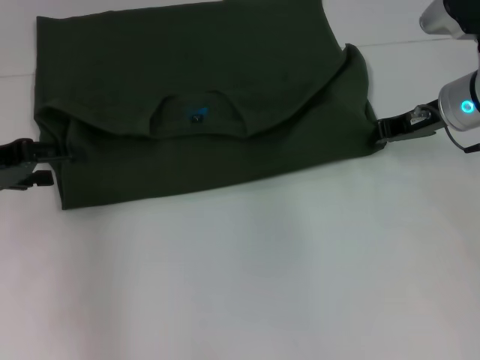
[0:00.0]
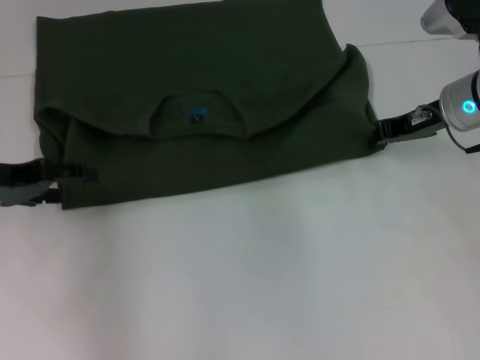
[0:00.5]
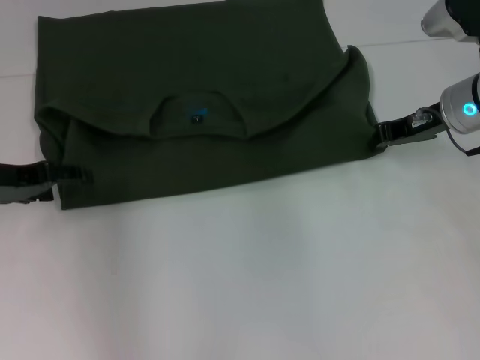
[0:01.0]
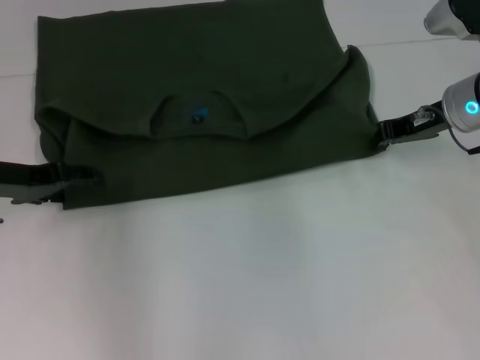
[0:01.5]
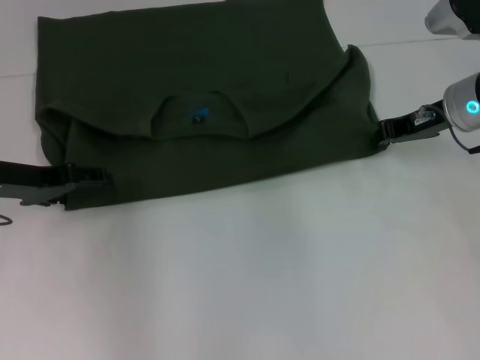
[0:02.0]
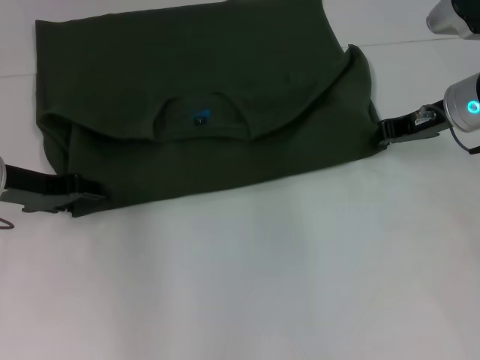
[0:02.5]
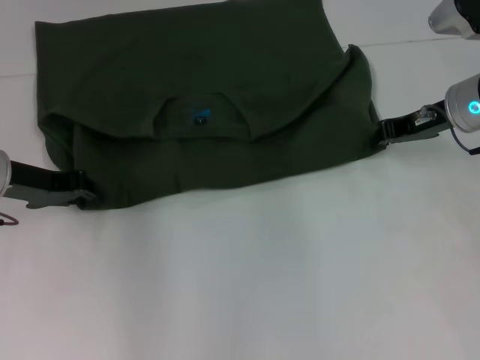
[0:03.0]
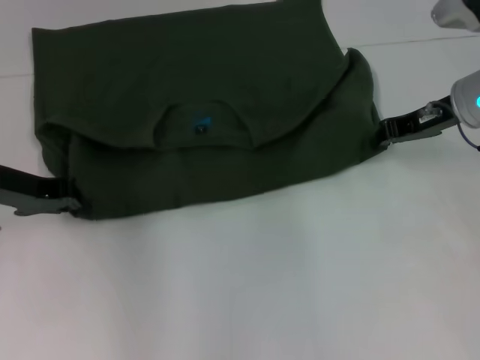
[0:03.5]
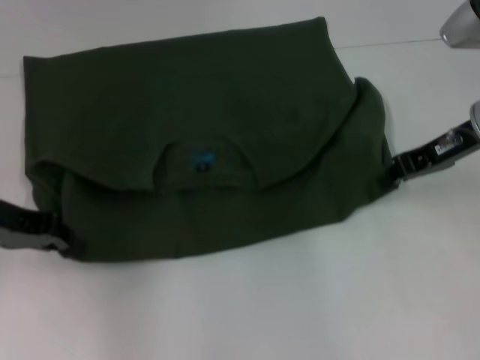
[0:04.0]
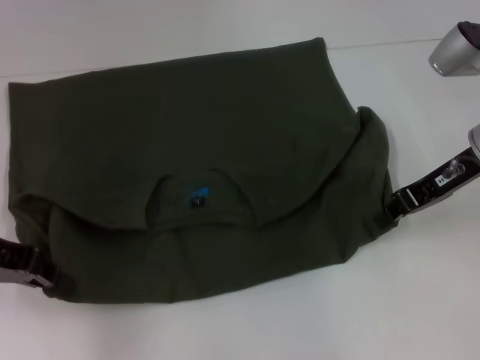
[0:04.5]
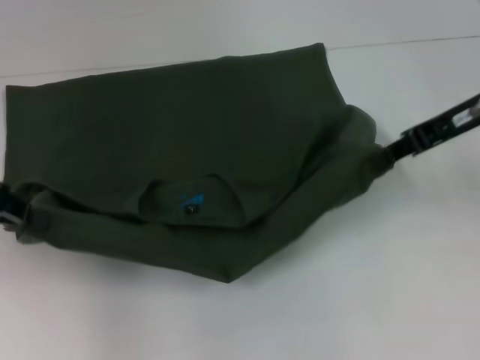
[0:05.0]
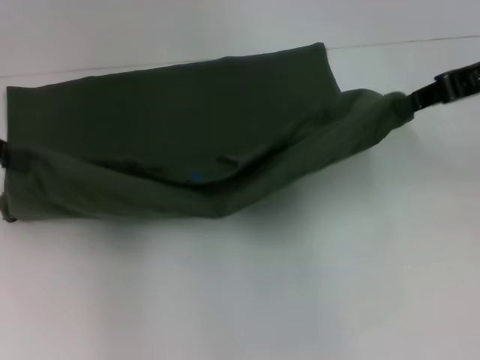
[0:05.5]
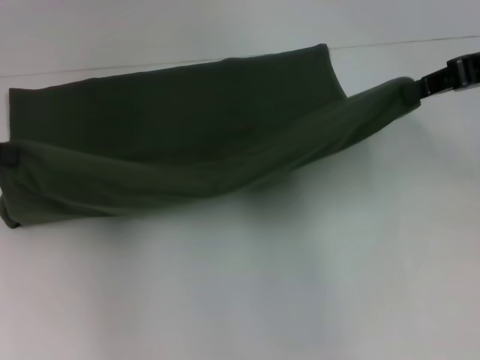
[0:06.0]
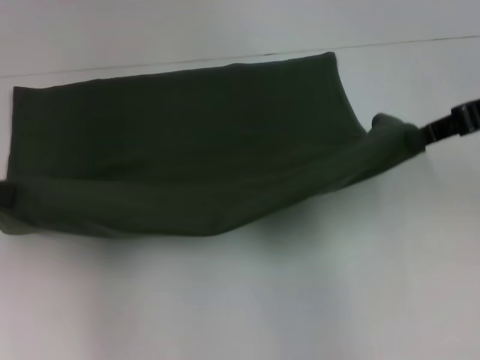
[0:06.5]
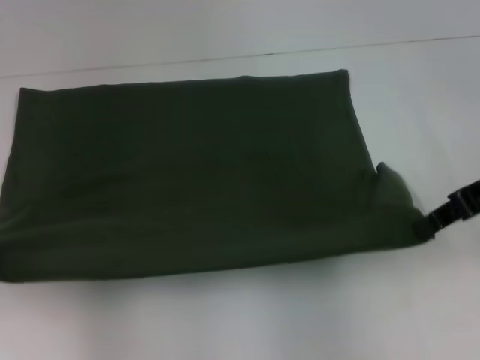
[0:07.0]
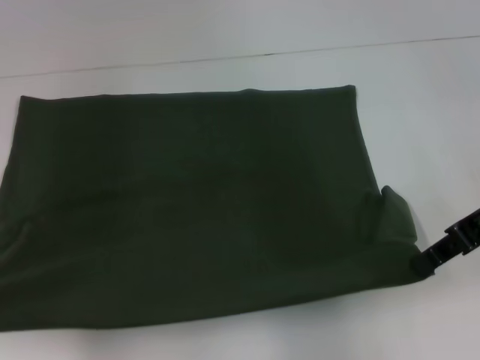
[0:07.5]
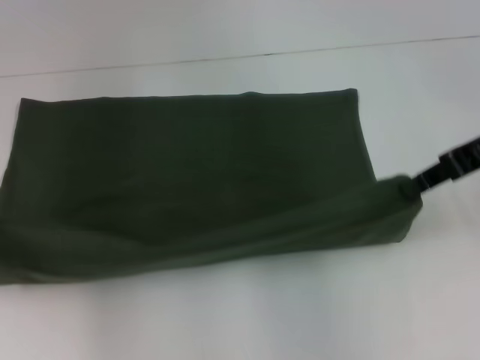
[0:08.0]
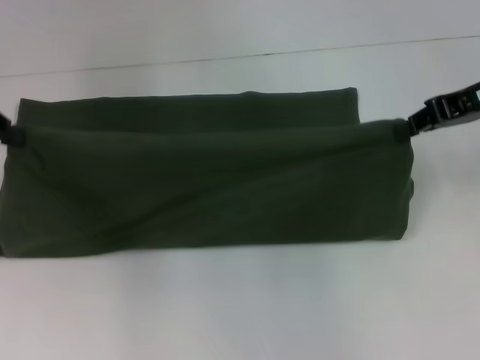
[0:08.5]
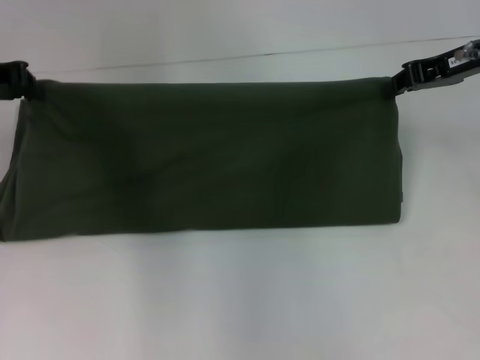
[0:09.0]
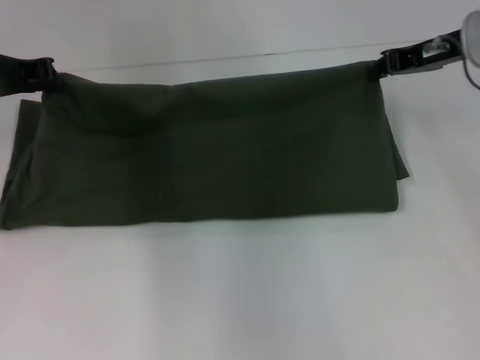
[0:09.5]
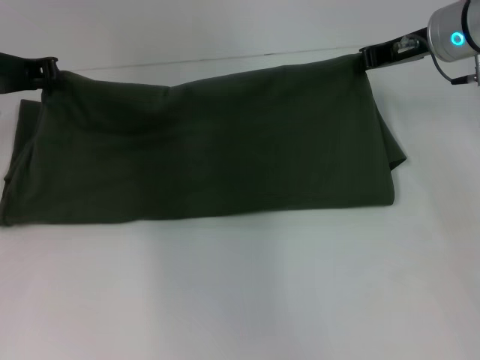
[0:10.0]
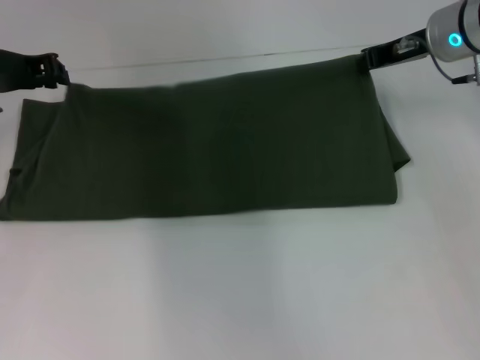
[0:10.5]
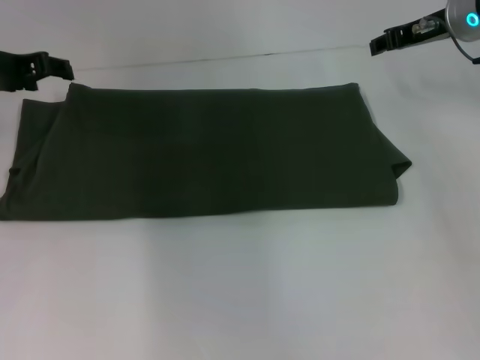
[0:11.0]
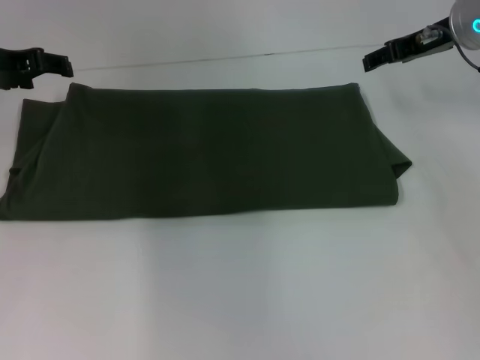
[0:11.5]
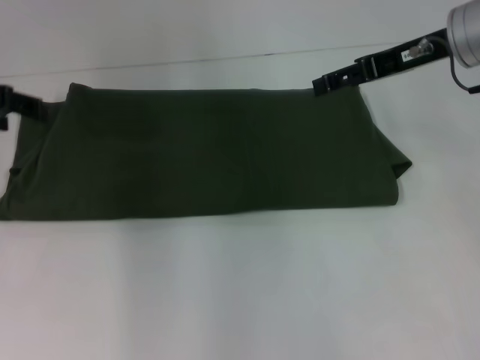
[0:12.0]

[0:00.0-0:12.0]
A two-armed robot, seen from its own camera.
Step, 0:00.0 to 0:04.5: Pull the clothes with your left hand.
Step, 0:00.0 to 0:04.5: Pull the clothes with your right hand.
Step, 0:05.0 to 0:10.5: Fold the clothes with your left hand.
Step, 0:05.0 to 0:10.5: Fold the clothes with your right hand.
0:00.0 to 0:02.0: The left gripper moves some 5 cm.
0:02.0 to 0:04.0: The left gripper closes up.
0:04.0 to 0:06.0: The left gripper moves upward and to the left, some 10 cm. The right gripper moves upward, roughly 10 cm.
0:08.0 to 0:10.0: The right gripper goes some 10 cm forward. Meanwhile the left gripper travels forward and to the right by approximately 15 cm.
0:10.0 to 0:12.0: The right gripper moves roughly 5 cm, and opens its fingers. Meanwhile the left gripper moves some 5 cm, and opens.

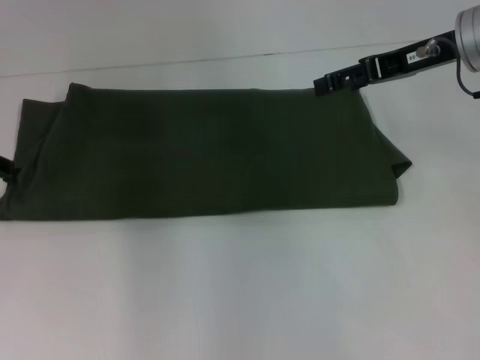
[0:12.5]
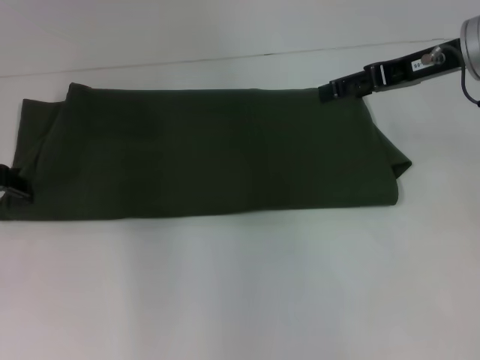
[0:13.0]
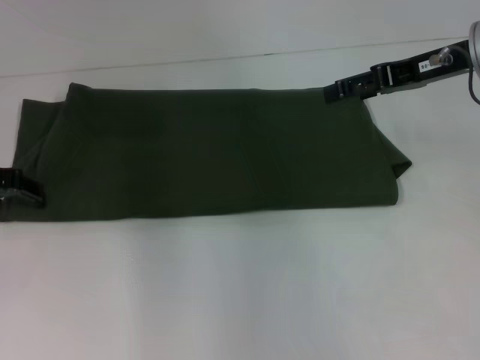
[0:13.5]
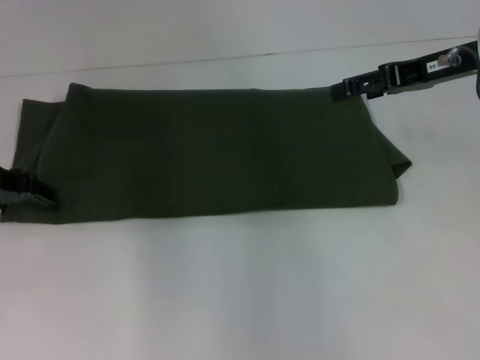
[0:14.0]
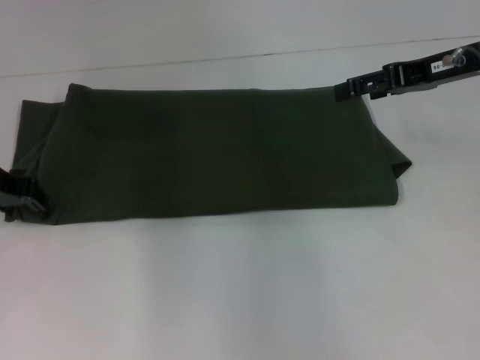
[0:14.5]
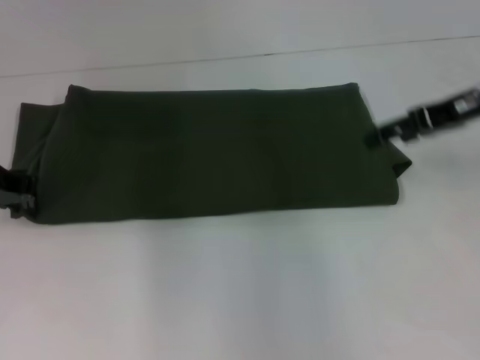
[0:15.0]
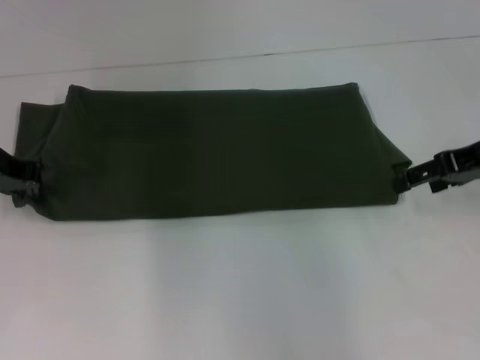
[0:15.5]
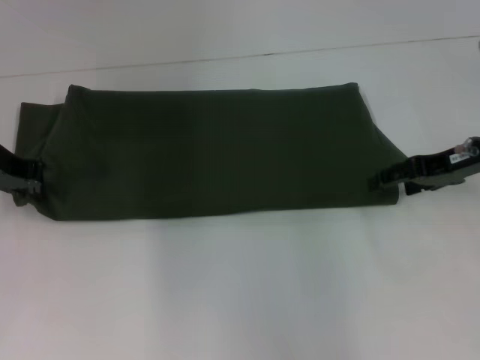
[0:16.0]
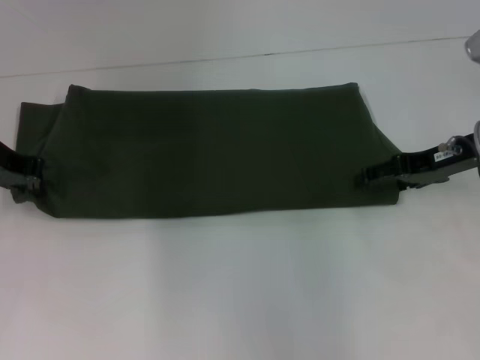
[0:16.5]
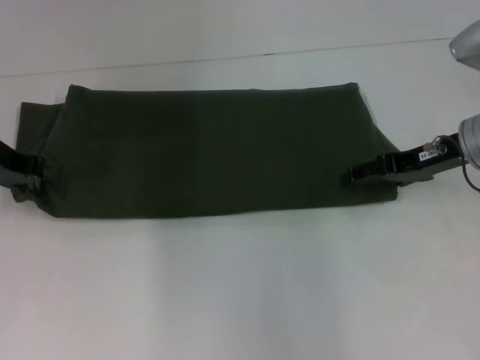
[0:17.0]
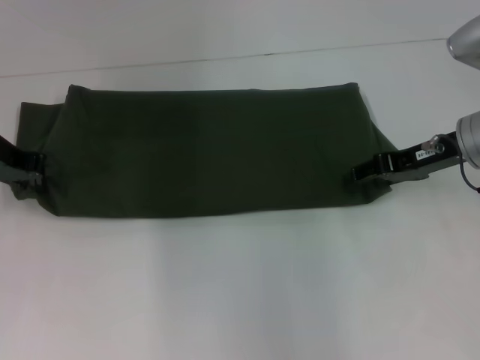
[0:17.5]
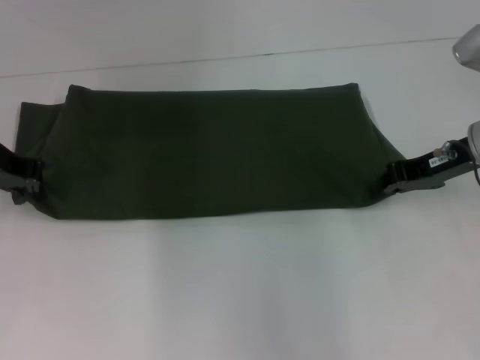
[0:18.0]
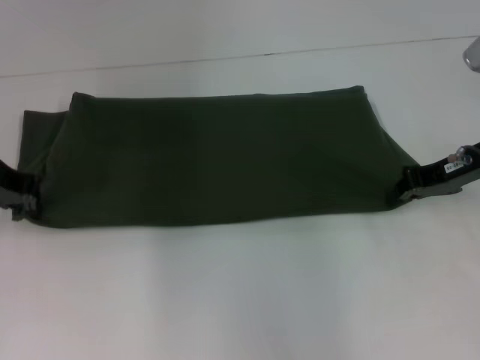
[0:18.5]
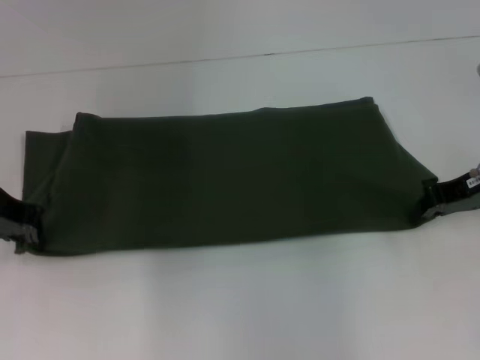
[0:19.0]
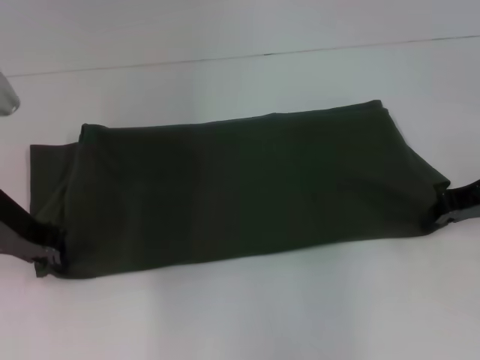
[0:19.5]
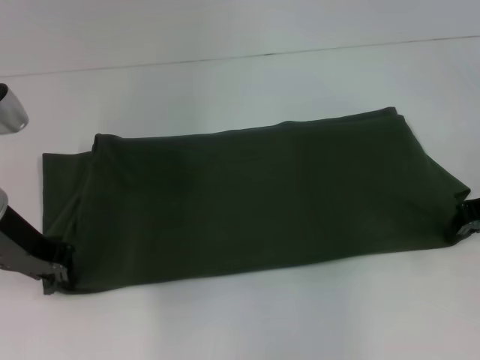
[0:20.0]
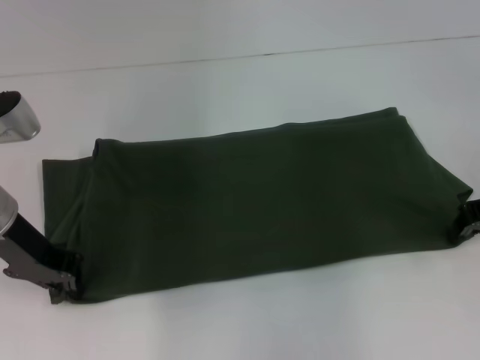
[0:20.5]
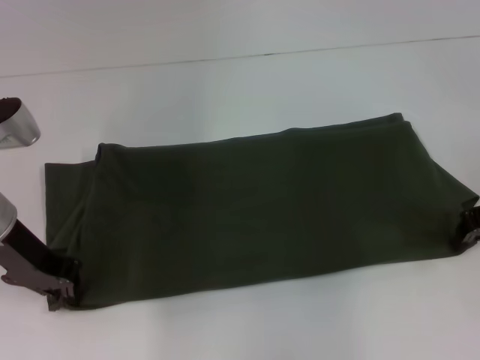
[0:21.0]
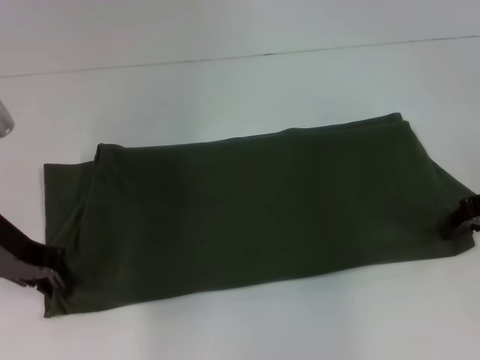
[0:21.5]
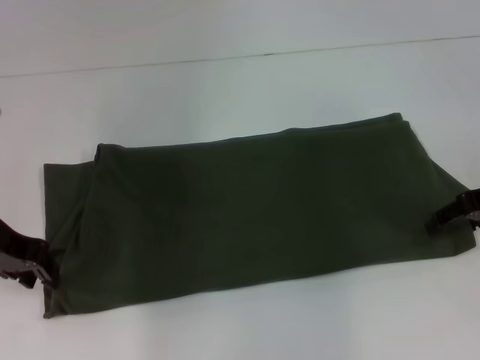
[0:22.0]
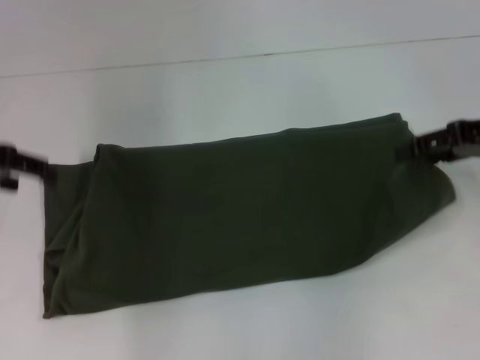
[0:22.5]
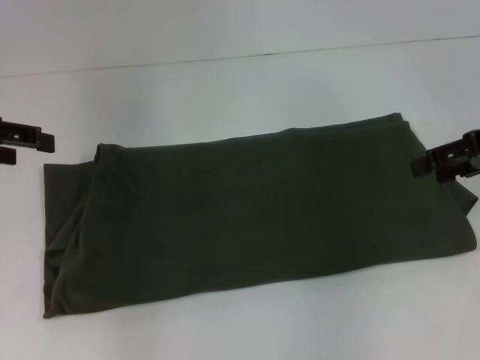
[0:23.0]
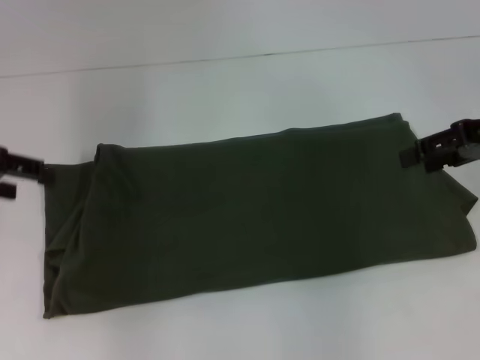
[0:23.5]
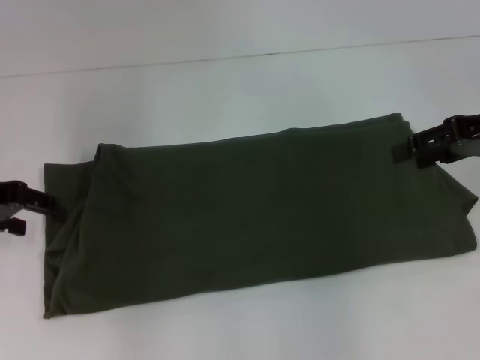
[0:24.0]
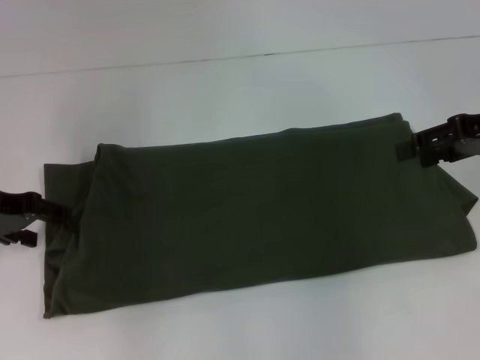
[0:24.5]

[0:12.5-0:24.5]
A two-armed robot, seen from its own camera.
Step, 0:12.5 to 0:21.5: Pull the clothes with your left hand.
Step, 0:12.5 to 0:21.5: Pull the clothes with your right hand.
0:12.5 to 0:14.5: The left gripper shifts by approximately 5 cm.
0:14.5 to 0:16.5: The right gripper heads downward, covering about 10 cm. Meanwhile the left gripper closes up.
0:16.5 to 0:18.5: The right gripper closes its fingers.
0:18.5 to 0:20.5: The left gripper travels backward by about 5 cm.
0:20.5 to 0:22.5: The left gripper is displaced upward and to the left by some 10 cm, and opens. The right gripper heads upward, covering about 5 cm, and opens up.
0:22.5 to 0:24.5: The left gripper shifts roughly 5 cm downward.

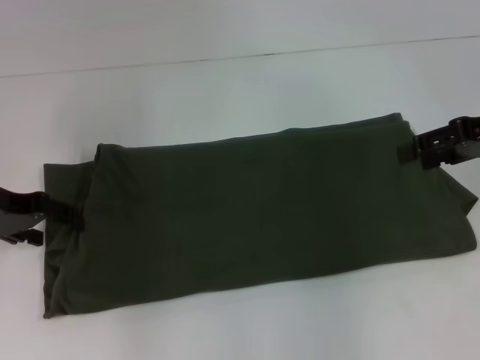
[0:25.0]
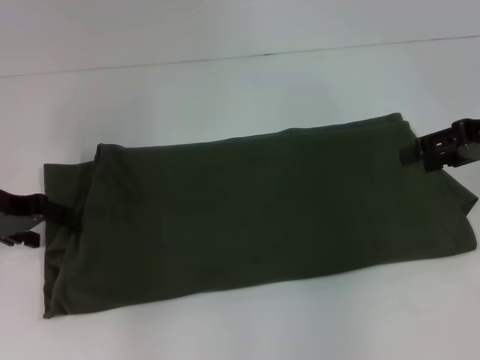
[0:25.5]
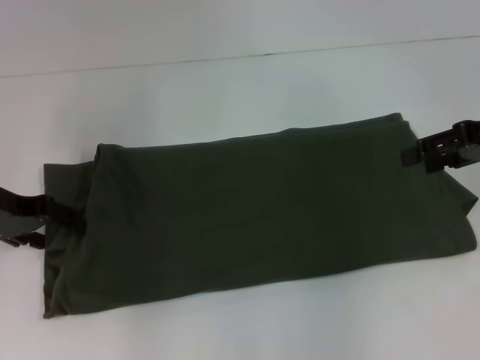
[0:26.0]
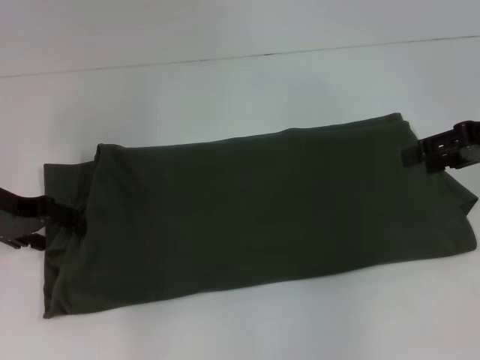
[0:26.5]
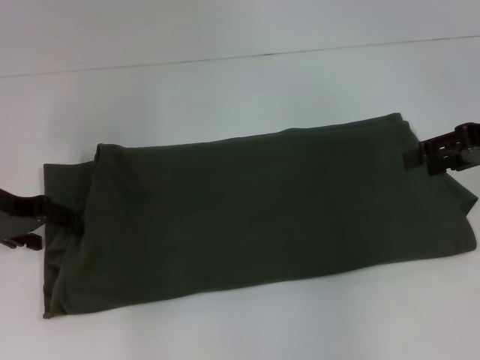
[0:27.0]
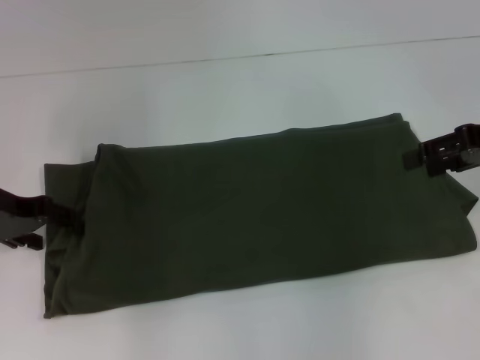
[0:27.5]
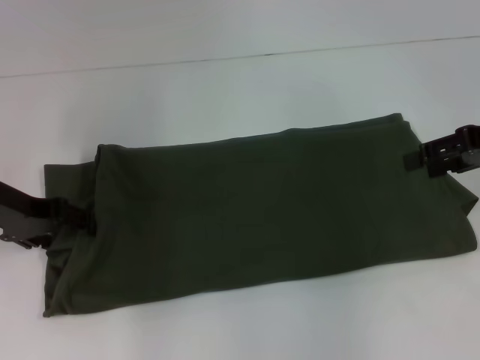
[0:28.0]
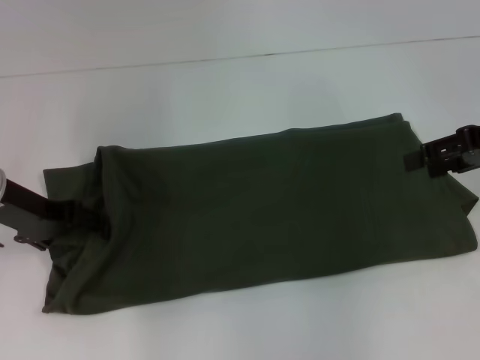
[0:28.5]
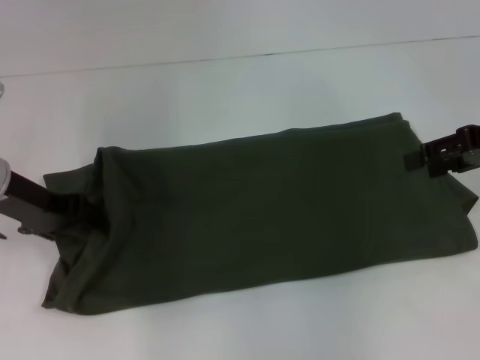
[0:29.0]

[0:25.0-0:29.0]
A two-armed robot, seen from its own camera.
0:25.0 to 0:27.0: Both grippers stay about where they are.
0:27.0 to 0:29.0: There are only small adjustments of the grippers.
